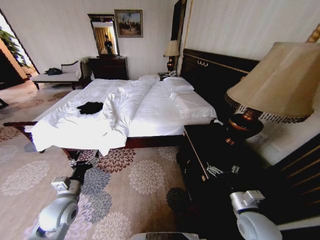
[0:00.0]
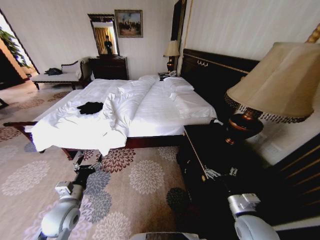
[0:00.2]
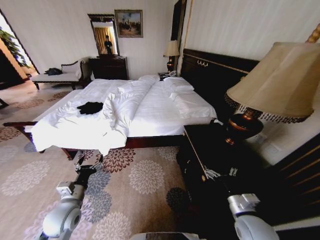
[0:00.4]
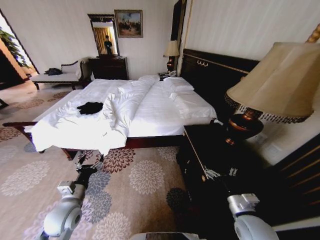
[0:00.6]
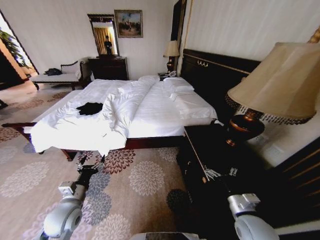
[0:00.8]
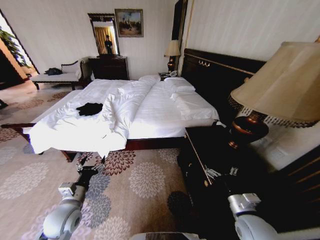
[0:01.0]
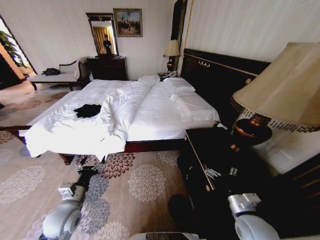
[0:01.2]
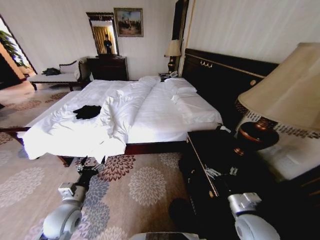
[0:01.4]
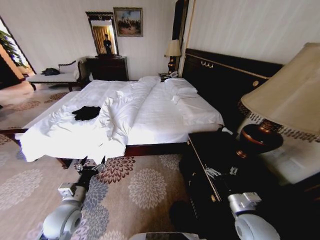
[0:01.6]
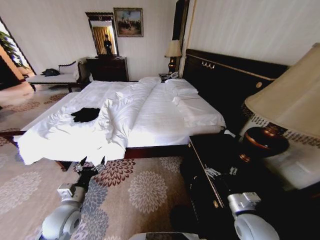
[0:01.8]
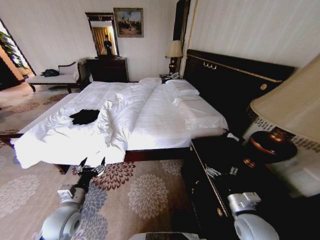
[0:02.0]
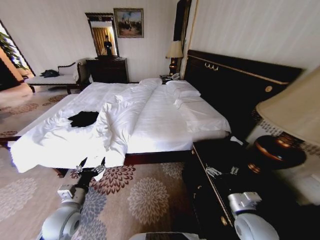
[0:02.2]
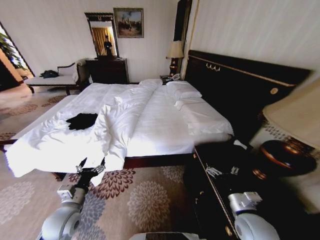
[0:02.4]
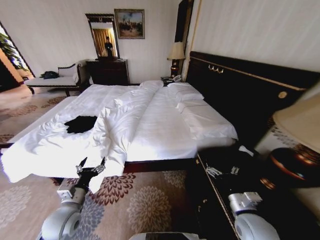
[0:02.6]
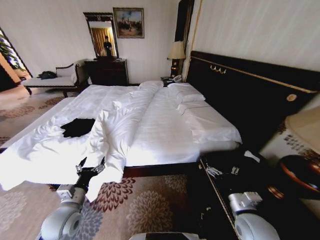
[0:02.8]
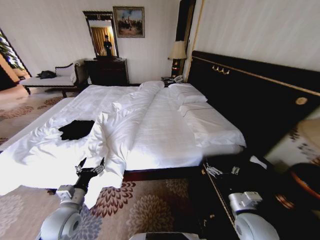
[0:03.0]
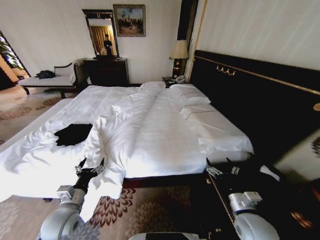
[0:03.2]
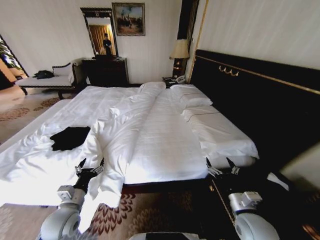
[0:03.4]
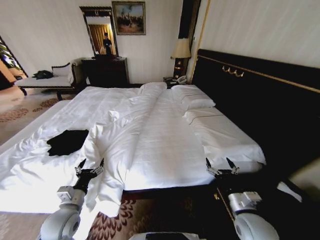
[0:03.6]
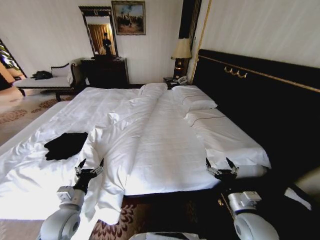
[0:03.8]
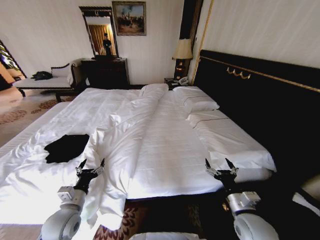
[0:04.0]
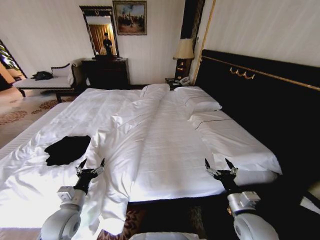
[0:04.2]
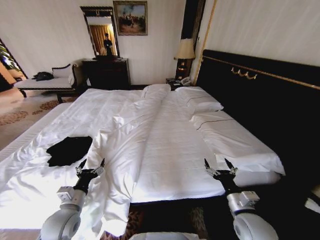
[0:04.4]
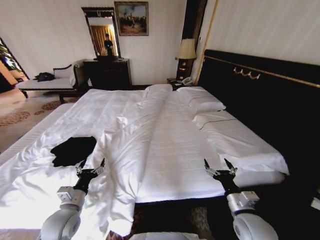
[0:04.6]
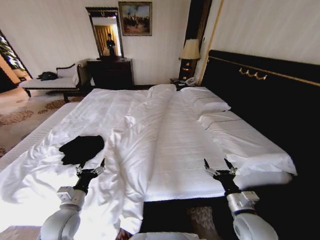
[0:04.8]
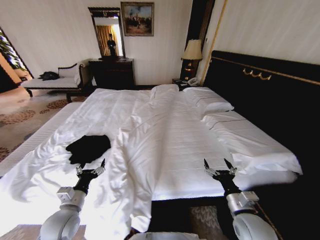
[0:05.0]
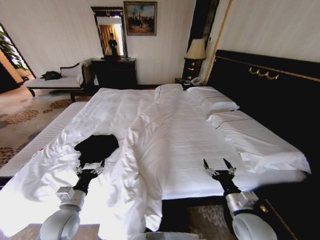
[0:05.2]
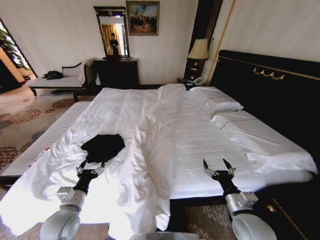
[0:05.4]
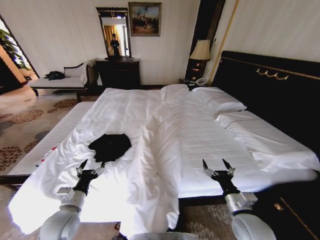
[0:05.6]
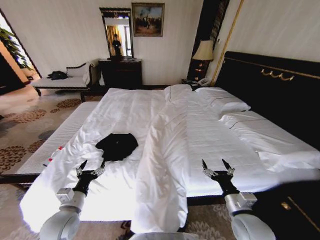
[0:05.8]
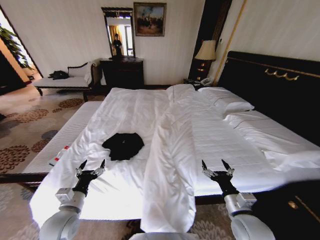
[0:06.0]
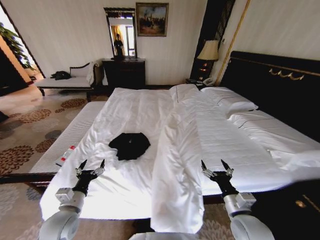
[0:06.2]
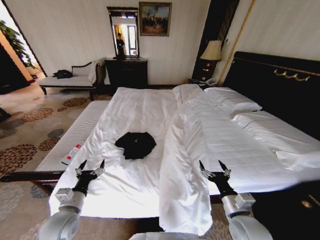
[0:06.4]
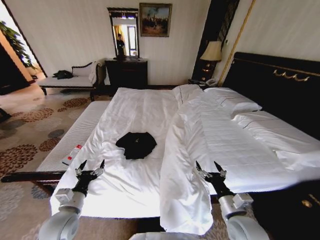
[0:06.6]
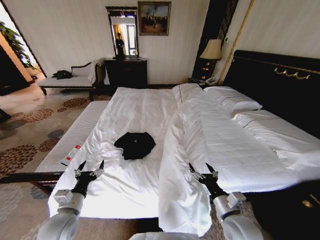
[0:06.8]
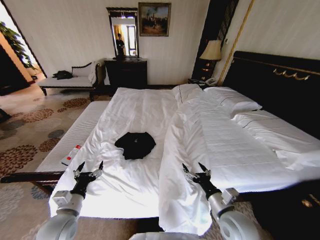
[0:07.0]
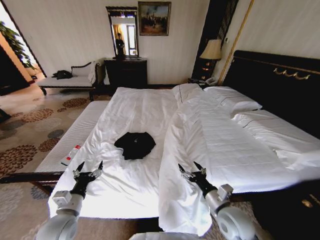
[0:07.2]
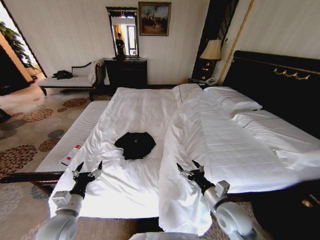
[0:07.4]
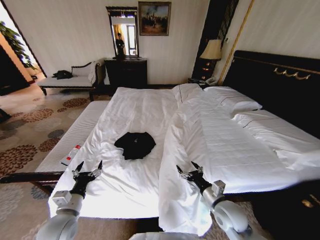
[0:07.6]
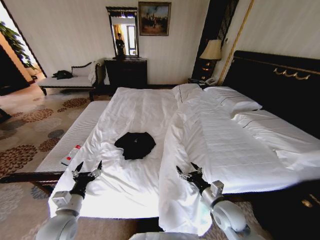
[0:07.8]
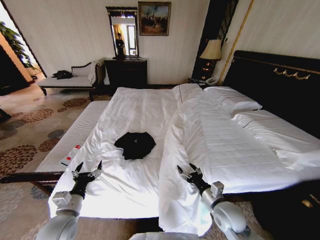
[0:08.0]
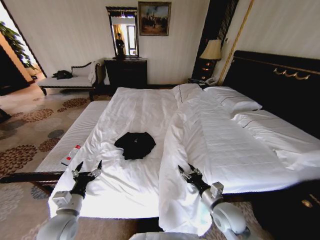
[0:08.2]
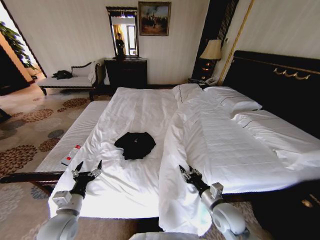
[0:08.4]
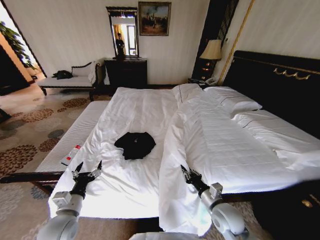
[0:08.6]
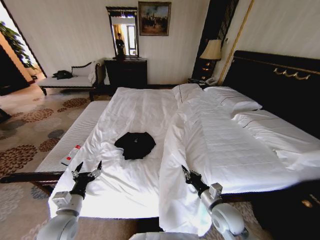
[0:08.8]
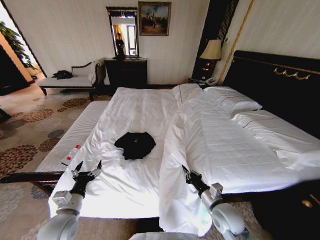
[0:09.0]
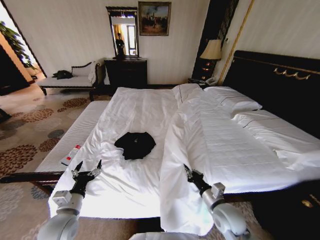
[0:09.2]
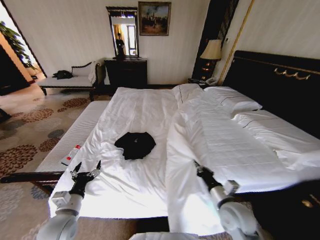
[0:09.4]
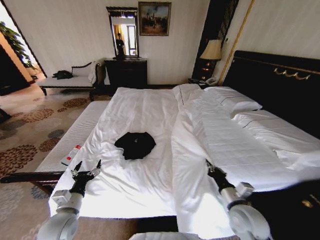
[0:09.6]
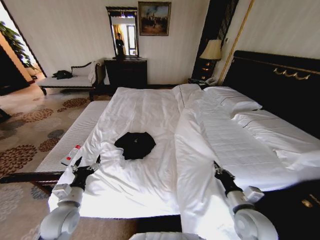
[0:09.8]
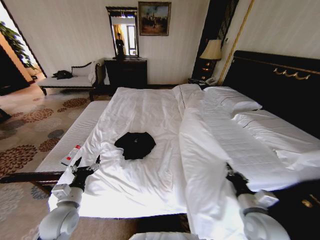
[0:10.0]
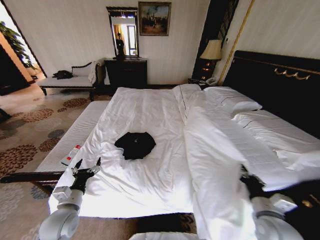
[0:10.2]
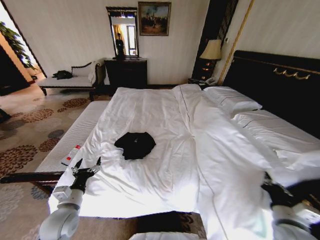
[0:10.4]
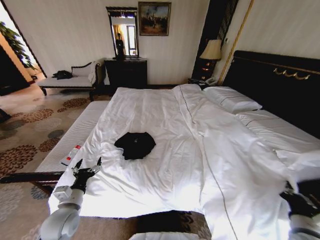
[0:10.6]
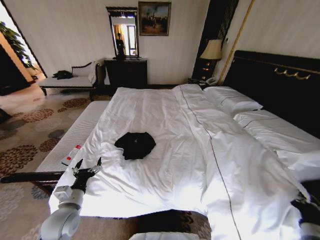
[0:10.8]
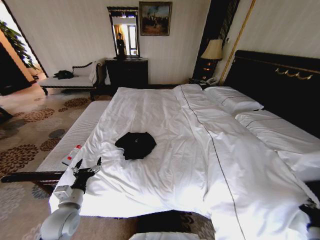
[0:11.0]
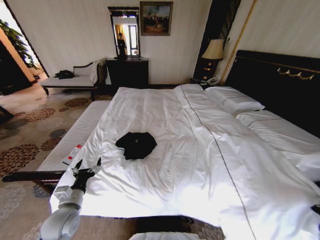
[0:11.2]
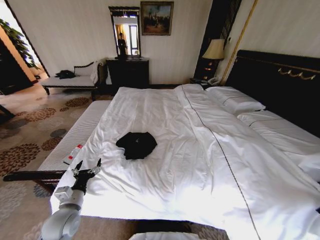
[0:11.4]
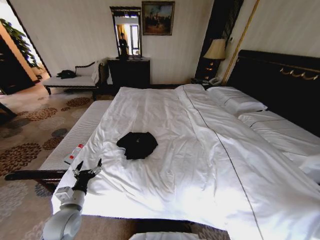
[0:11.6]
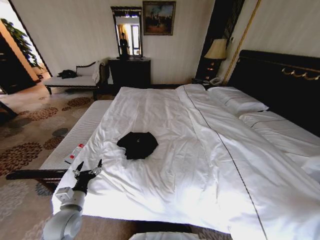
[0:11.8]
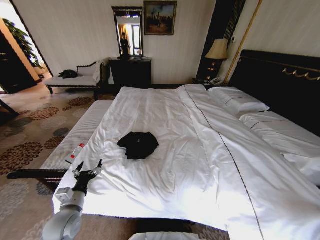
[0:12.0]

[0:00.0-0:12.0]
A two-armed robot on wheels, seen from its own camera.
Task of the whole recording: Fold the clothes on the bed.
0:06.0 to 0:07.6: The right gripper ends up some 5 cm from where it was.
0:07.6 to 0:09.0: The right gripper closes up.
0:09.0 to 0:10.4: The right gripper is displaced to the right and backward by about 15 cm.
0:10.4 to 0:12.0: The right gripper heads to the right and downward, covering some 20 cm.

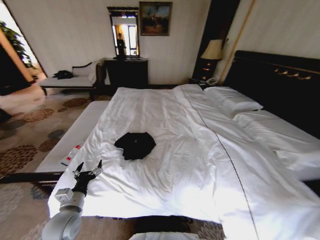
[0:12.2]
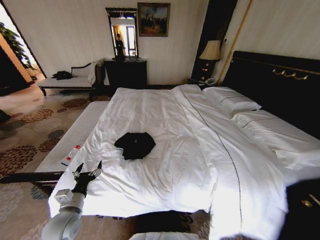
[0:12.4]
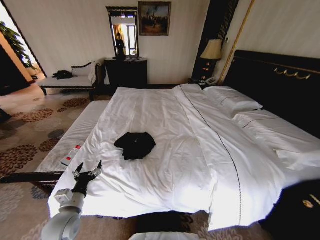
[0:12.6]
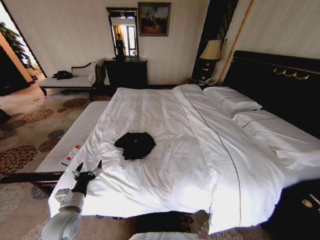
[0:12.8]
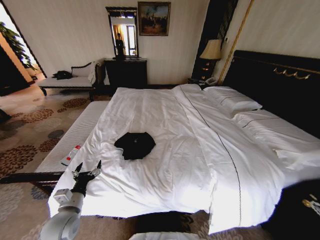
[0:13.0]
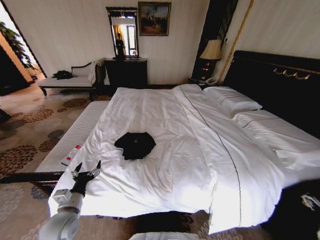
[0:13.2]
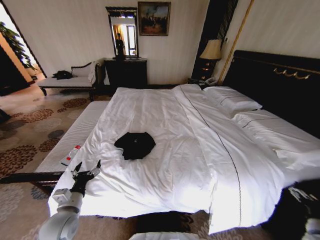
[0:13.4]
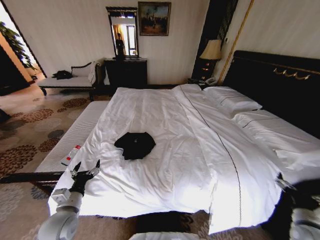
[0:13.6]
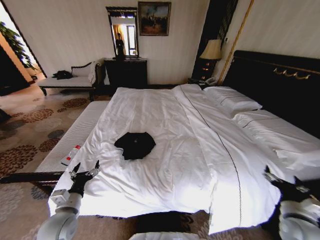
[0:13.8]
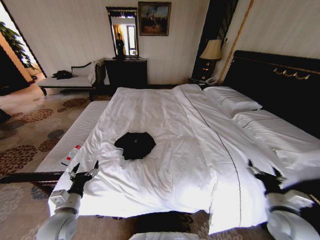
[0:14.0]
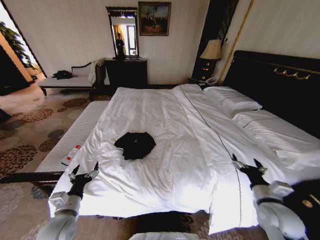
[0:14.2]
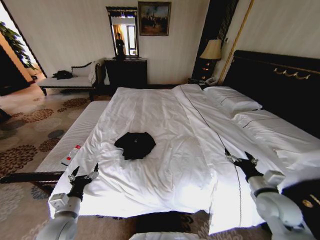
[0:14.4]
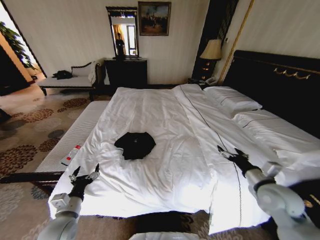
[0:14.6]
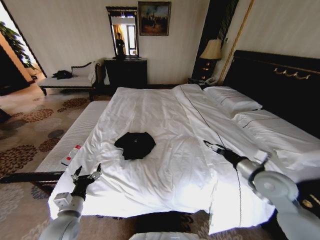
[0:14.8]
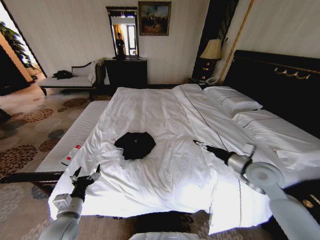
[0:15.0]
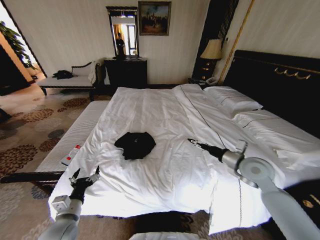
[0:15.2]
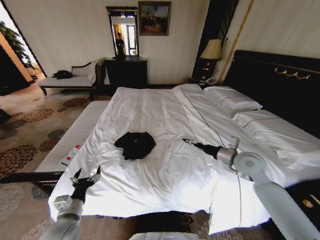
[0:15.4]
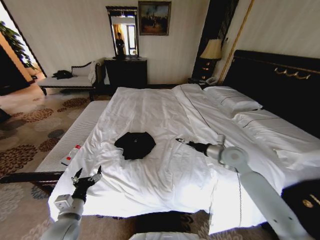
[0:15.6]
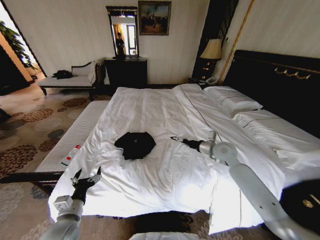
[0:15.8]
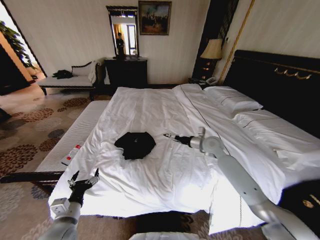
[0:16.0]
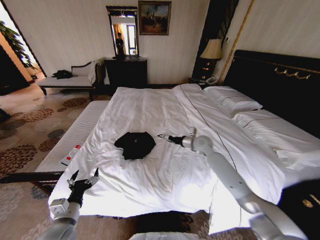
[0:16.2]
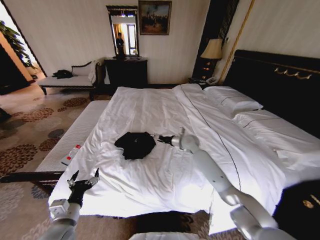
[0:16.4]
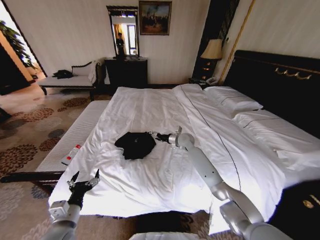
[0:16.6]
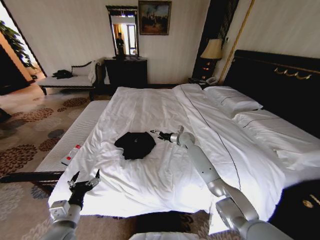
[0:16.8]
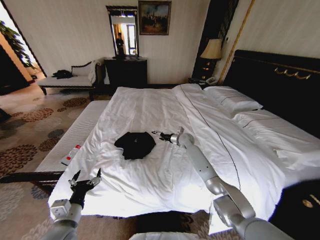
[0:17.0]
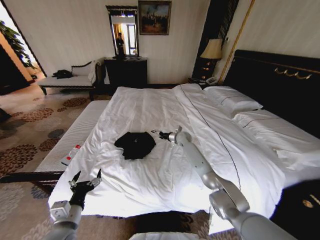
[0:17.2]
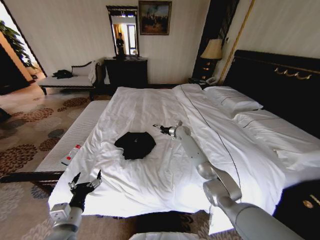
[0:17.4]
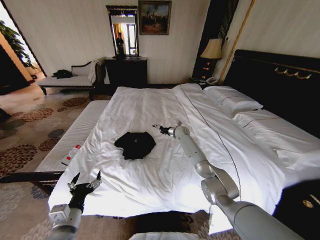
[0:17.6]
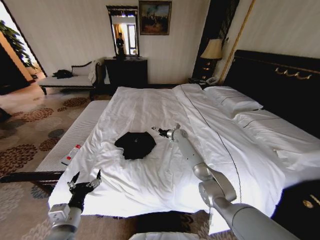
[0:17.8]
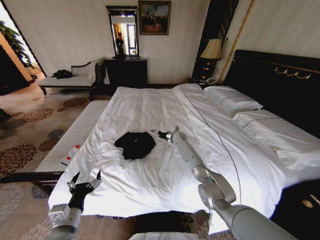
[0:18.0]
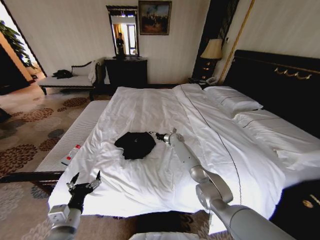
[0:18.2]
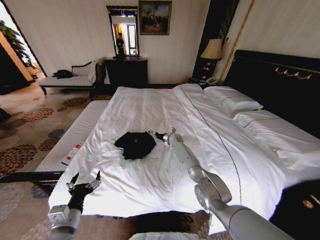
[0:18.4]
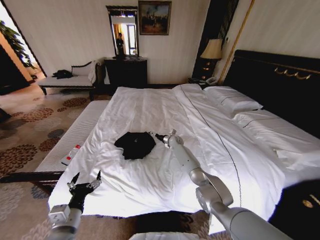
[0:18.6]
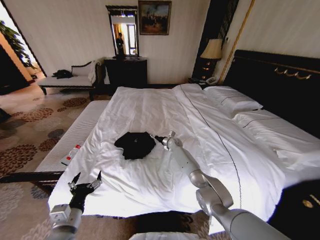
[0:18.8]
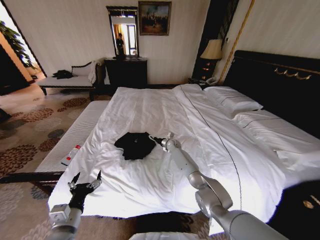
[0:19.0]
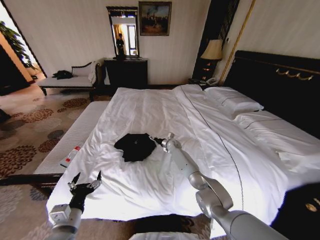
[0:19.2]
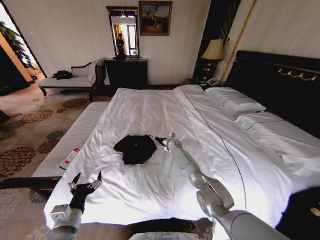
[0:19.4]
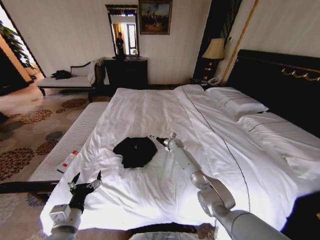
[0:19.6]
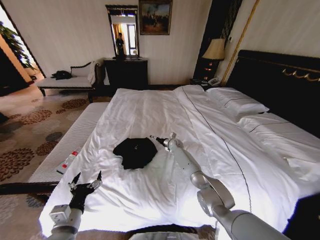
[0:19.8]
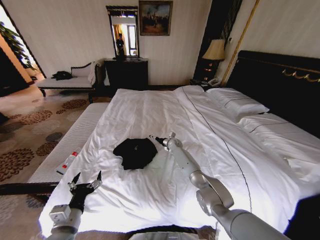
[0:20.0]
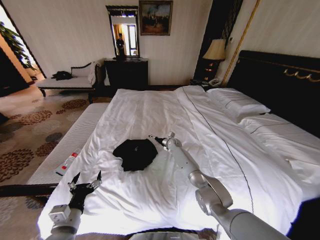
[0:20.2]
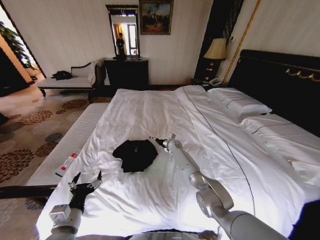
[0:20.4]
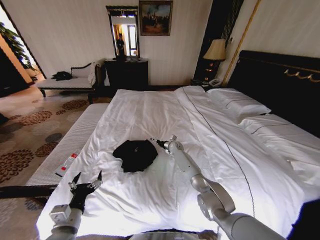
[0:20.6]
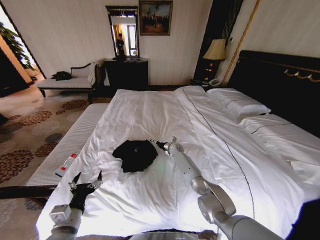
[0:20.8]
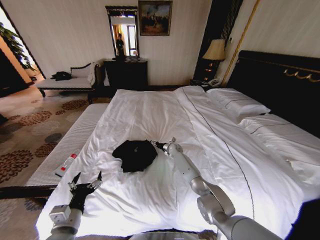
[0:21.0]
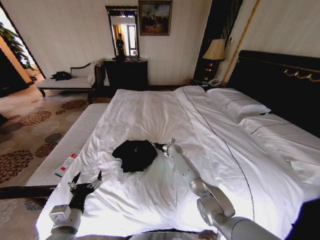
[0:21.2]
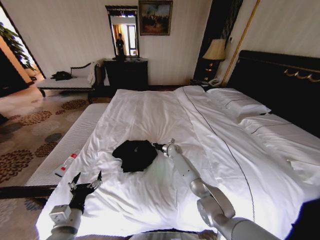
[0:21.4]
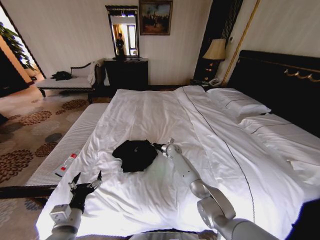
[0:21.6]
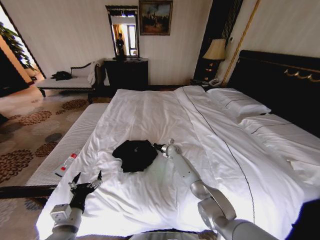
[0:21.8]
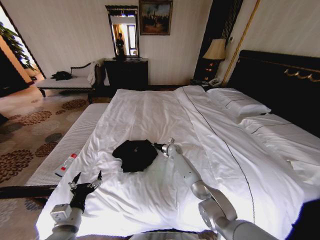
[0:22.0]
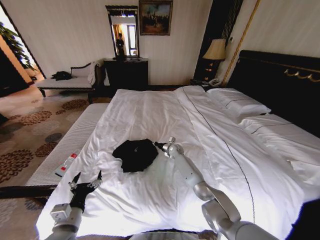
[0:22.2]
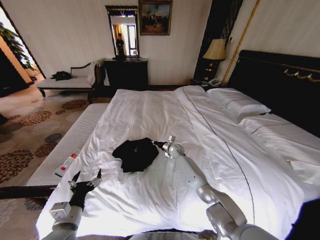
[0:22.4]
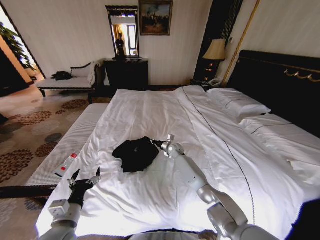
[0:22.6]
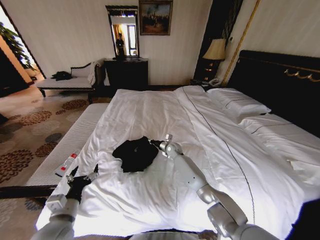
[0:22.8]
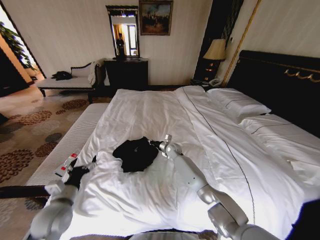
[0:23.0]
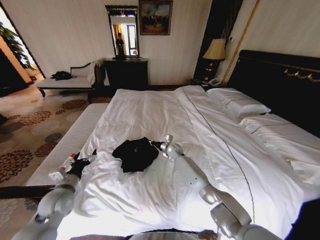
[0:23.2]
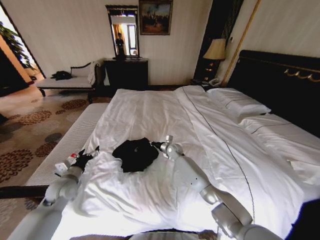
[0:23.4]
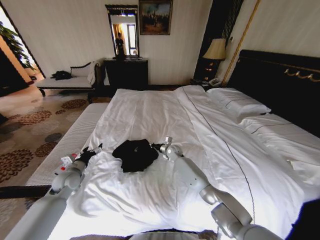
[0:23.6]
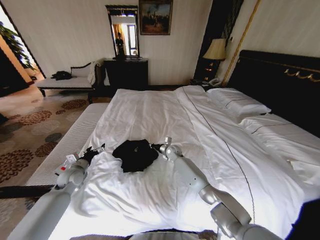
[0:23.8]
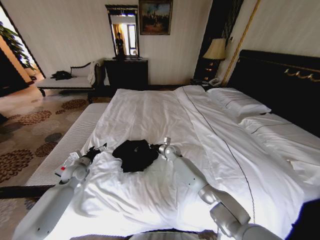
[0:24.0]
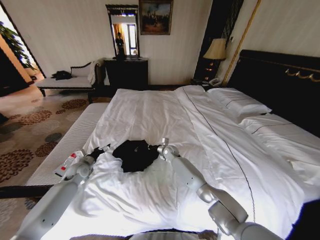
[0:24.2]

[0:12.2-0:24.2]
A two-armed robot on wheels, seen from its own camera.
Task of the whole recording: Fold the clothes on the bed.
0:12.2 to 0:13.8: The right gripper moves to the left, forward and upward, about 15 cm, and opens its fingers.
0:13.8 to 0:15.2: The right gripper heads forward, upward and to the left, covering approximately 25 cm.
0:15.2 to 0:16.6: The right gripper goes approximately 30 cm forward and to the left.
0:16.6 to 0:18.2: The right gripper is displaced forward and downward by about 10 cm.
0:19.8 to 0:21.2: The right gripper closes its fingers.
0:21.2 to 0:22.6: The right gripper moves upward, some 5 cm, and closes.
0:22.6 to 0:24.2: The left gripper is displaced forward by about 25 cm.
